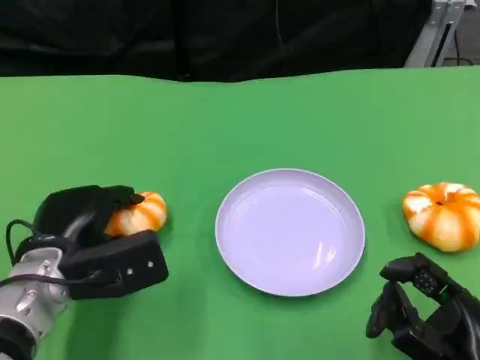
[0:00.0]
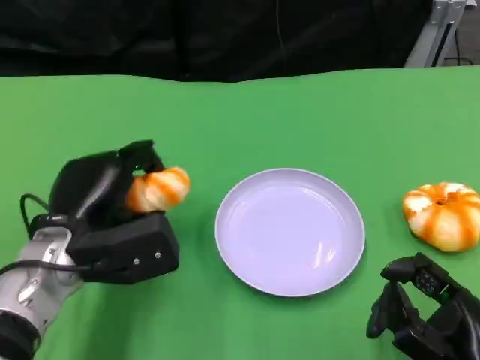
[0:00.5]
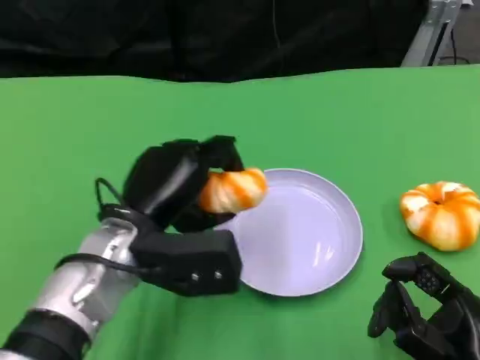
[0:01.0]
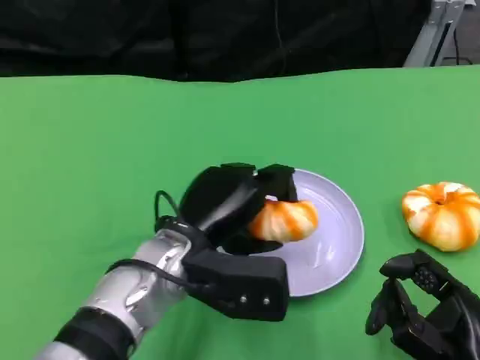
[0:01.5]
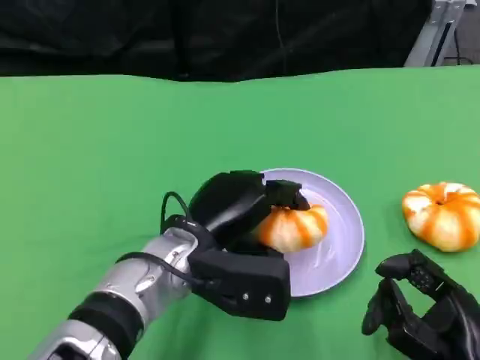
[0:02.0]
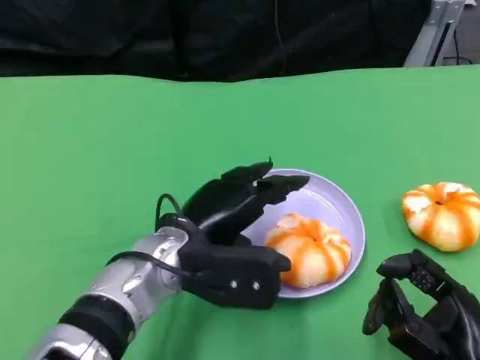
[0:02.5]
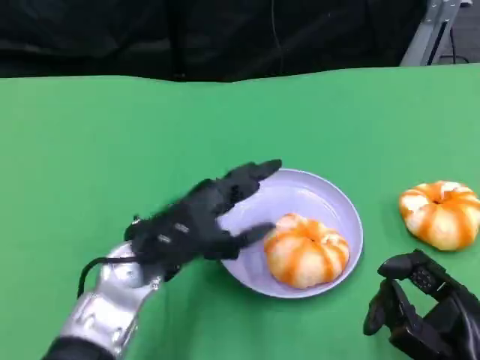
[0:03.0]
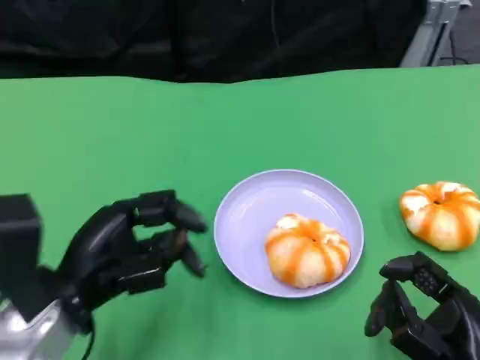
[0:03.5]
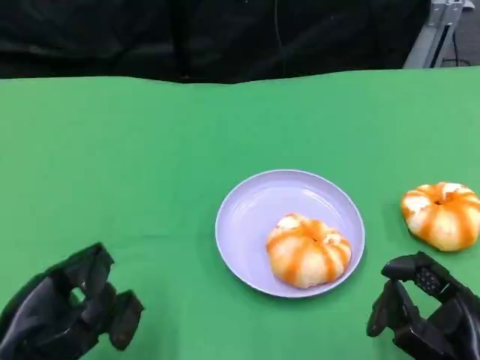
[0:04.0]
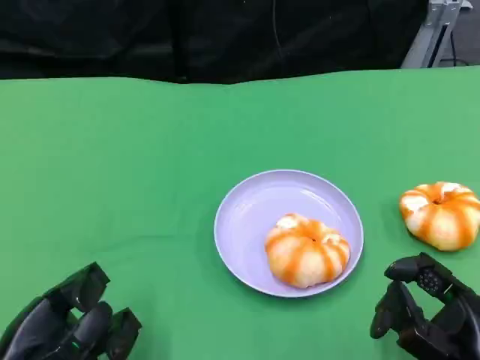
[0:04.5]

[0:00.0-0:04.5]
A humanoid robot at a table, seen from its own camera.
Task of the whole recording: Grasp the bread from the table and place it into the plate.
0:00.0 to 0:02.0: The left hand moves to the right, some 15 cm.
0:02.0 to 0:04.5: The left hand shifts roughly 20 cm to the left and backward.
